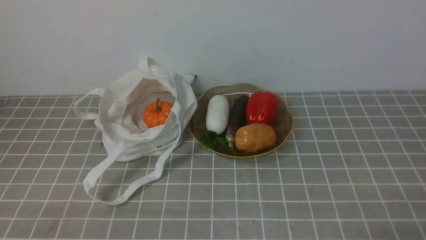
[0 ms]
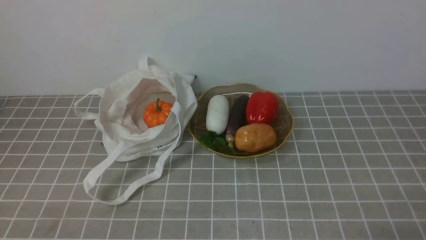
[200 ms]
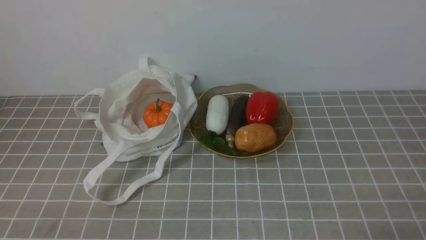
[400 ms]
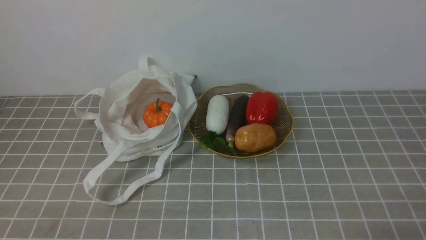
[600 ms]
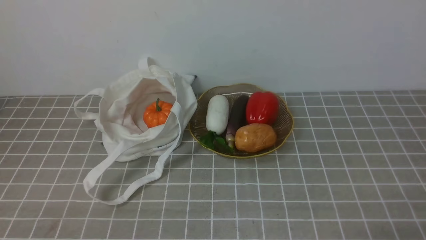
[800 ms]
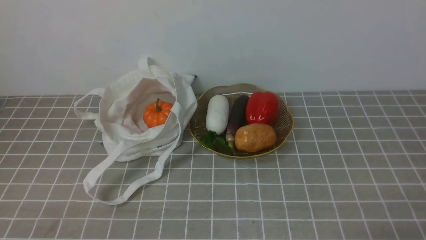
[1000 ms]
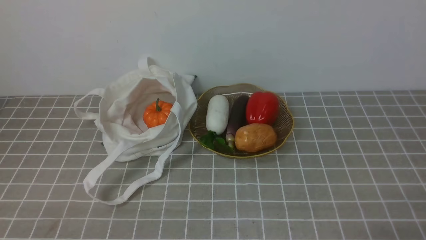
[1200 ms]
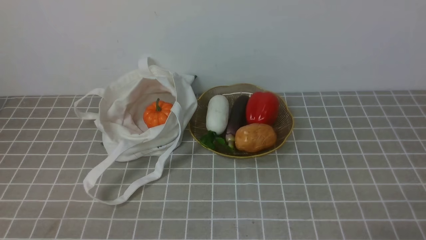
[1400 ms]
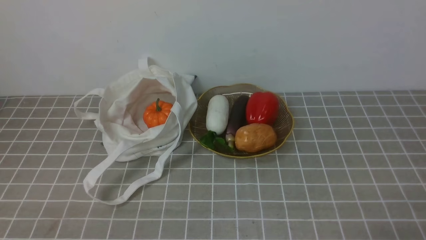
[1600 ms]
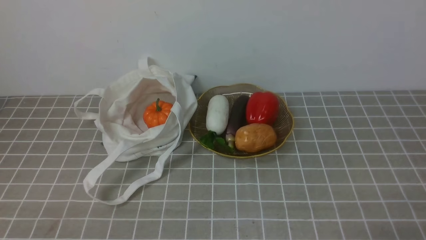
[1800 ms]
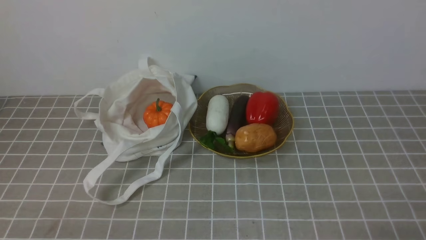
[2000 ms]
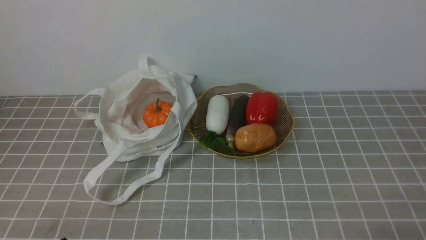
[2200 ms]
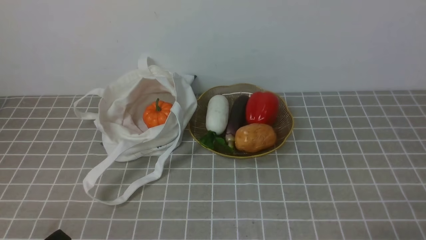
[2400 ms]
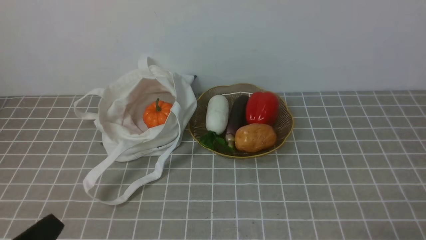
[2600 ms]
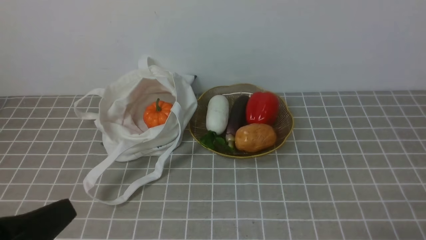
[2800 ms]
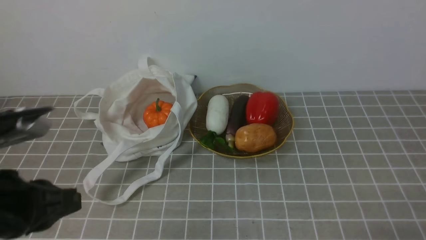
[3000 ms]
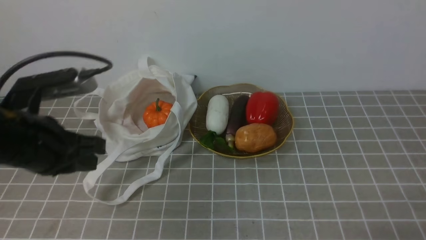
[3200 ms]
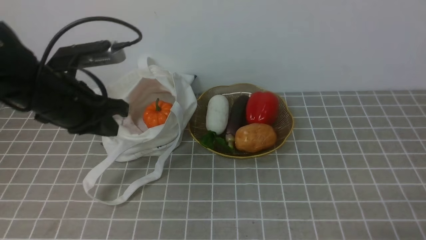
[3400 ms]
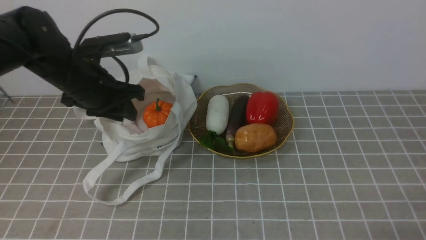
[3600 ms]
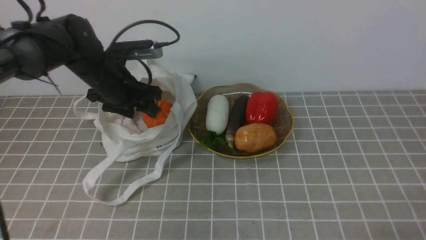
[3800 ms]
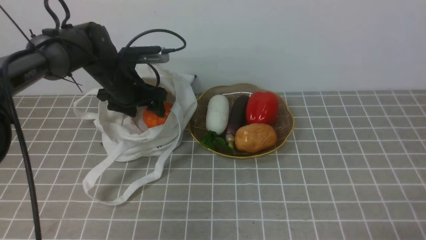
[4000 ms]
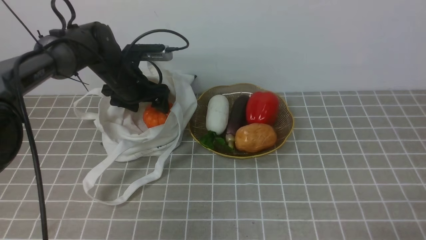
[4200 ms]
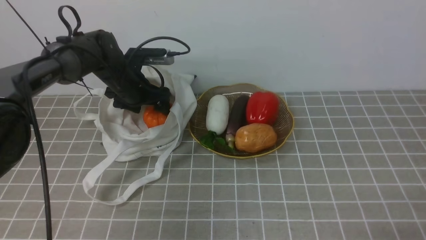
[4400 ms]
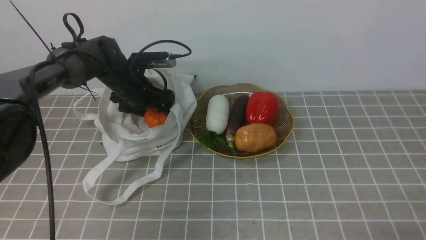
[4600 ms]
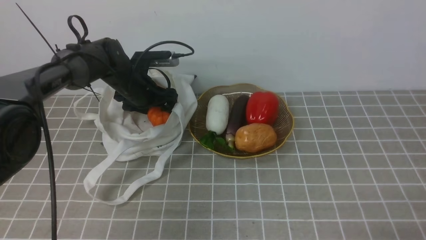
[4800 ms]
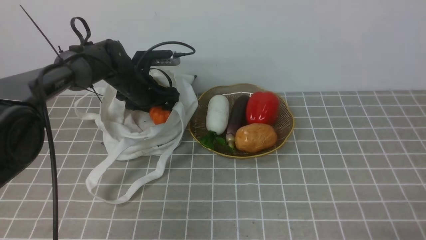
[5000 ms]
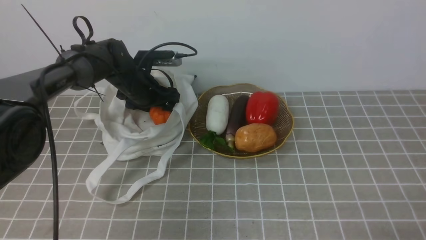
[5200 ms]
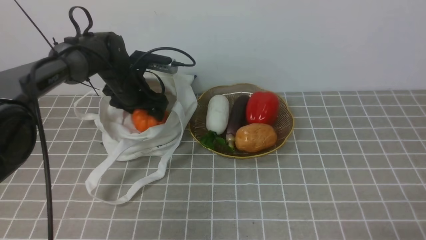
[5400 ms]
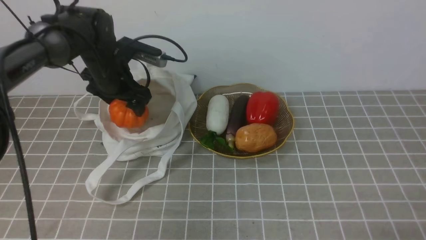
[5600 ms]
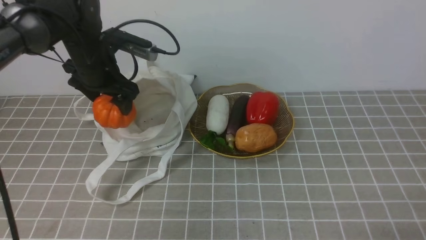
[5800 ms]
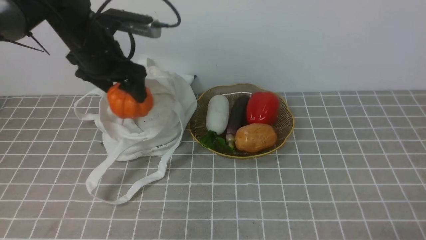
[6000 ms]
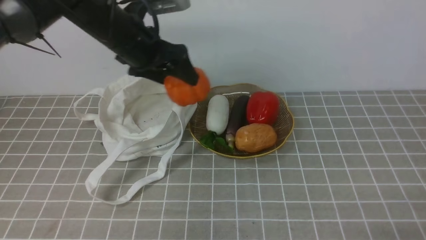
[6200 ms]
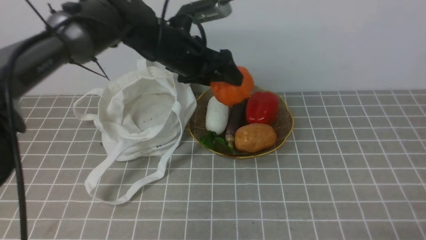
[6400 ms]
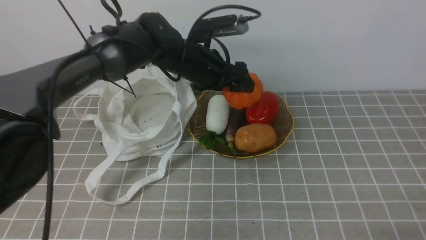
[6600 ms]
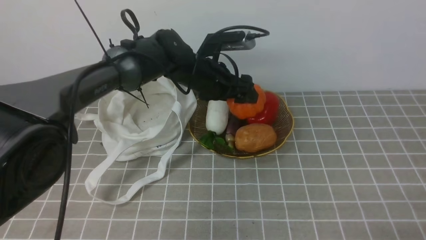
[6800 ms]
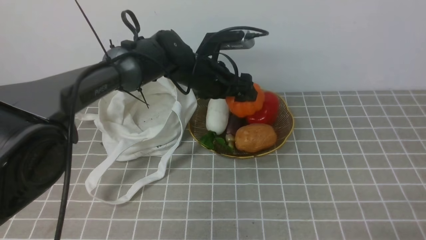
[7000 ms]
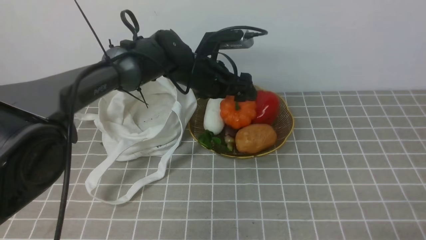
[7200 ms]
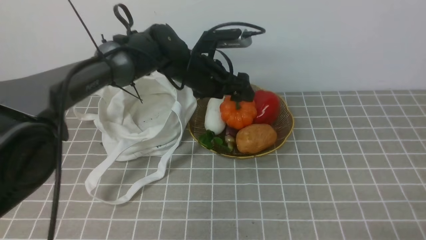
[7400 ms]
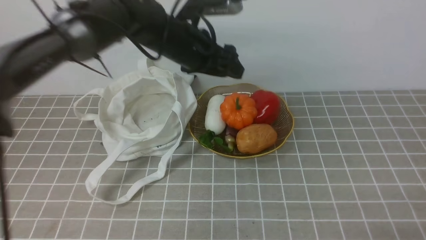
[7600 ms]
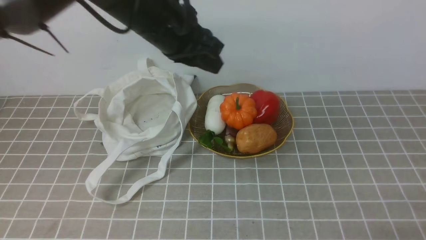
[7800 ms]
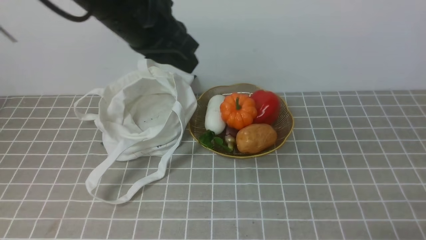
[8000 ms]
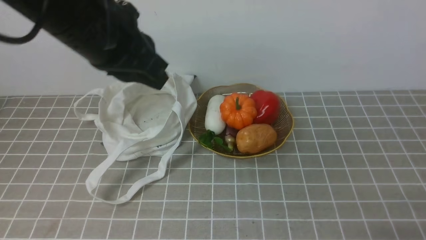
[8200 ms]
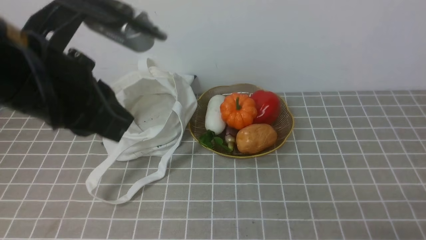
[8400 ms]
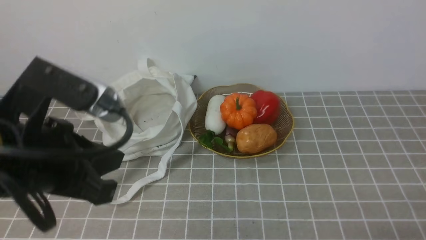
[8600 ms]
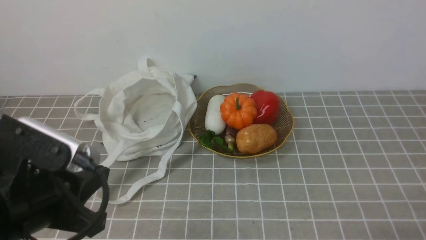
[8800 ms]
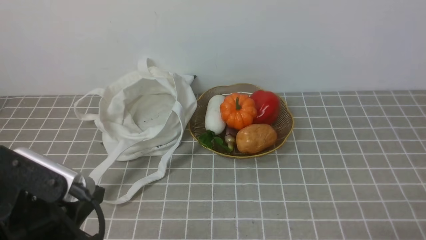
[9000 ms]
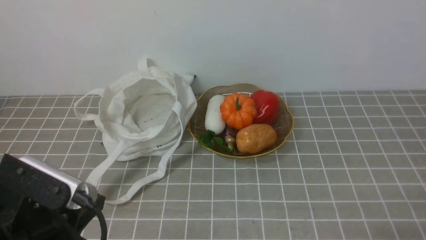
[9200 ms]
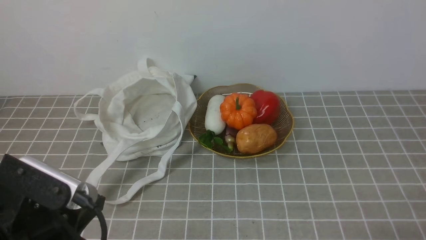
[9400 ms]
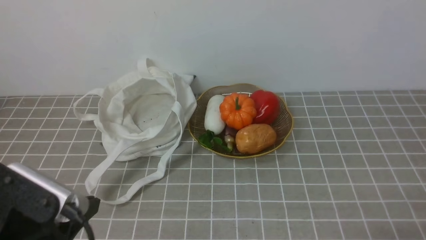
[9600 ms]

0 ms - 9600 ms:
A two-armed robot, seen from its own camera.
Task of the whole recording: take vegetables from bag on grey coffee tablecloth place on plate.
Step, 0 ms - 4600 ms: Grasp the pumpkin with left gripper.
Step, 4800 ms - 7600 ms: Place the pumpkin on the plate with left gripper.
1600 ms - 3200 ms: The left gripper moves upward and forward, roughly 20 cm.
3200 ms - 4800 ms: The left gripper travels forward and downward by roughly 35 cm, and opens its fingers.
4800 ms - 6400 ms: The left gripper heads upward, to the right and backward, covering about 15 cm.
6400 ms - 8000 ms: The left gripper moves upward and backward, some 15 cm, and closes its fingers.
8000 ms - 9600 ms: The left gripper is displaced backward, downward and to the left by some 30 cm.

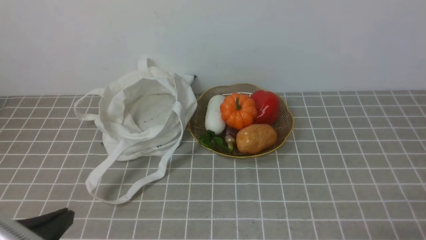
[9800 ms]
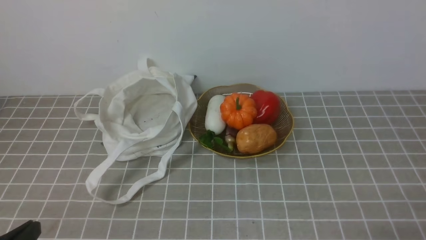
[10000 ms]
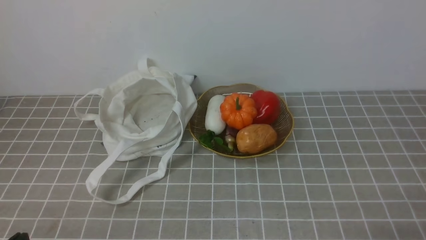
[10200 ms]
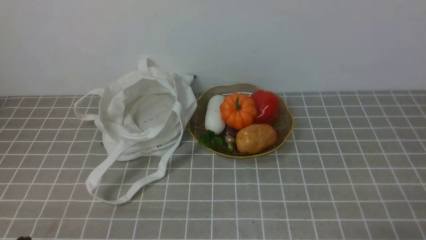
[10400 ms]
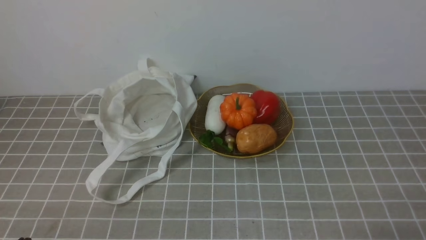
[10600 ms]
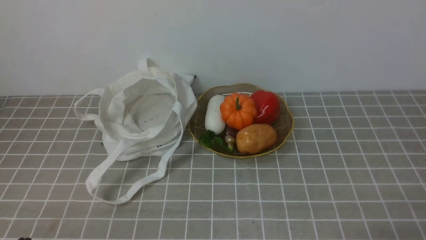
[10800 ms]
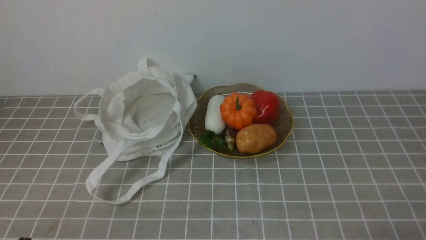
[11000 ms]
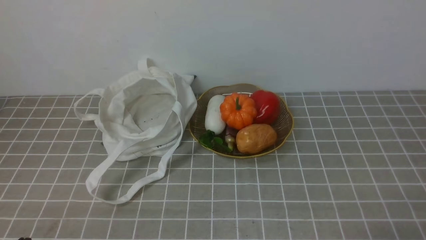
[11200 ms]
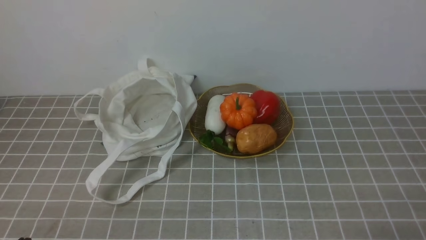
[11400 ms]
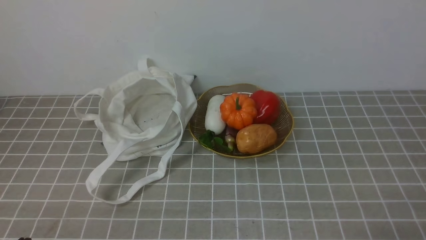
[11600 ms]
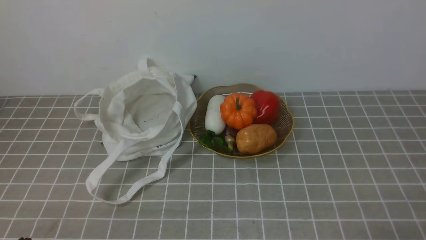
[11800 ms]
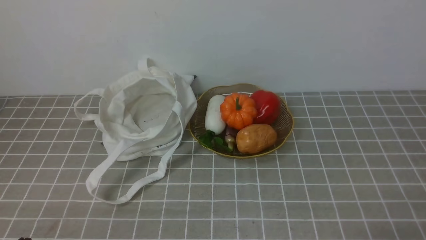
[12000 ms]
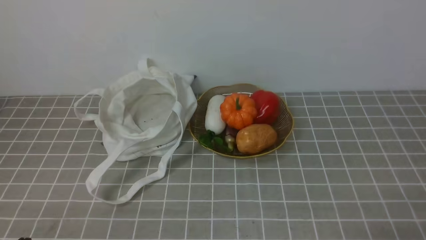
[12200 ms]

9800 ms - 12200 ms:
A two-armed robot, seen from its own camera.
Task of the whole recording: take vegetables from bag on grey coffee tablecloth place on plate.
9800 ms - 11000 ms: The left gripper shifts about 5 cm downward.
11000 ms - 12200 ms: Both grippers stay put.

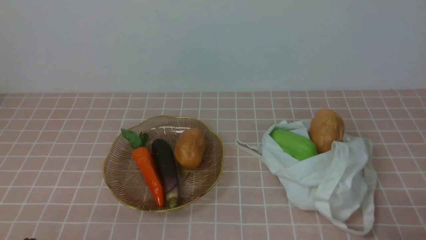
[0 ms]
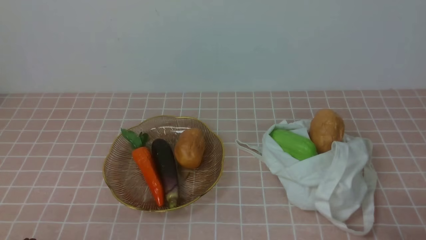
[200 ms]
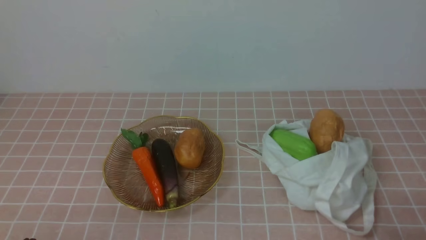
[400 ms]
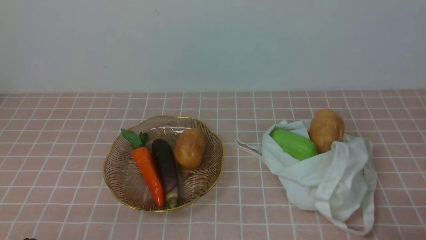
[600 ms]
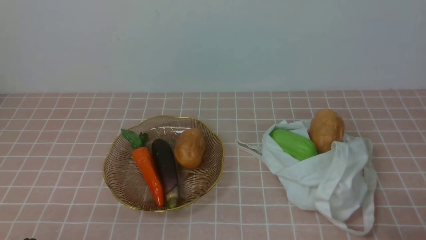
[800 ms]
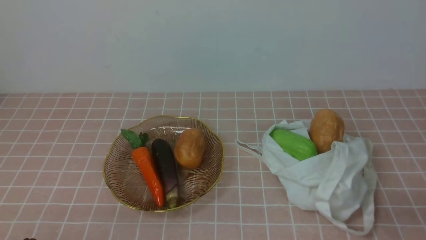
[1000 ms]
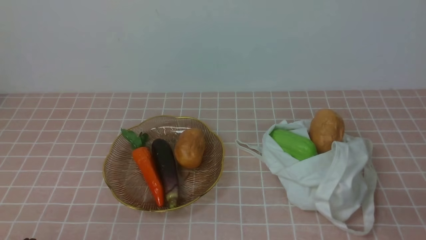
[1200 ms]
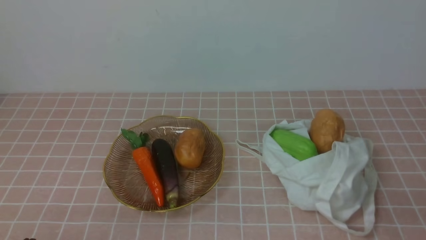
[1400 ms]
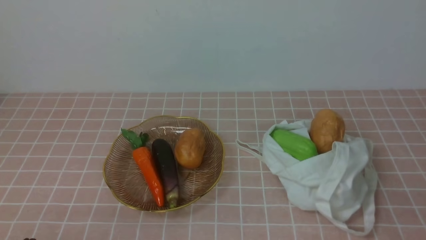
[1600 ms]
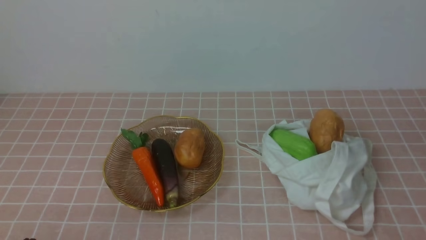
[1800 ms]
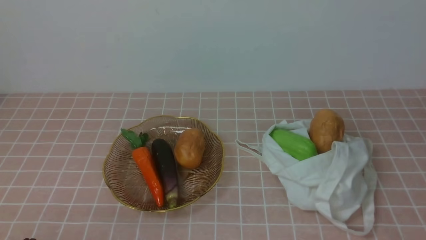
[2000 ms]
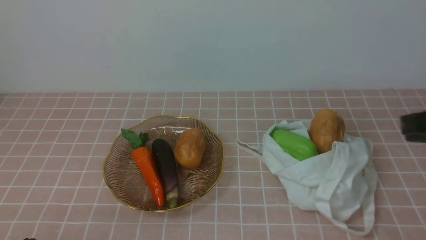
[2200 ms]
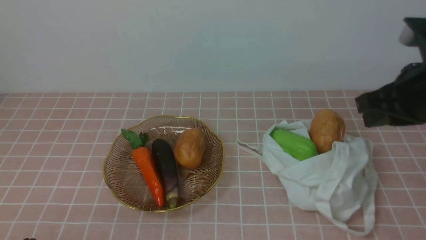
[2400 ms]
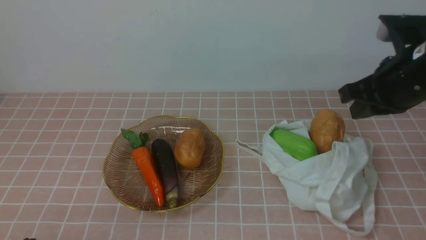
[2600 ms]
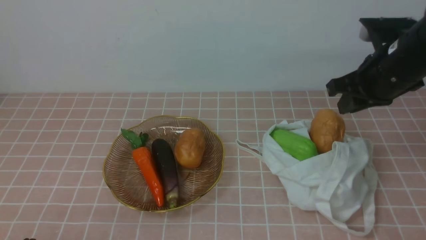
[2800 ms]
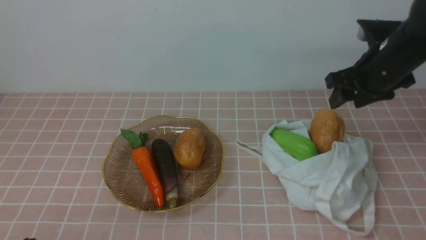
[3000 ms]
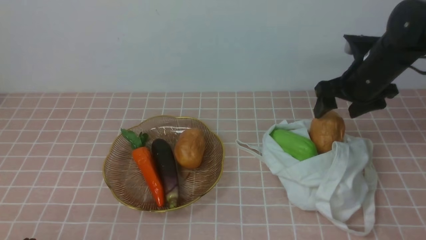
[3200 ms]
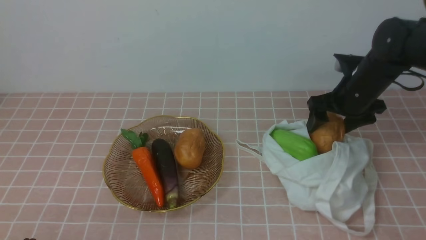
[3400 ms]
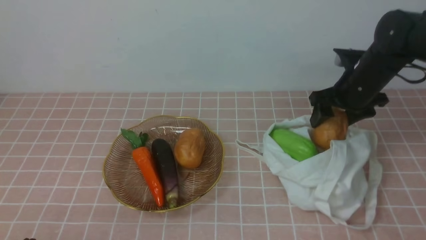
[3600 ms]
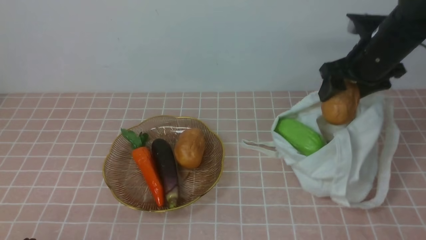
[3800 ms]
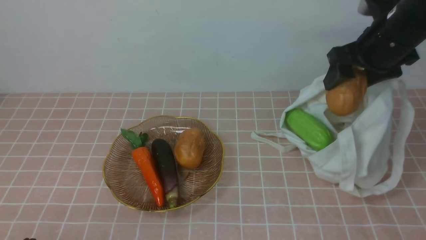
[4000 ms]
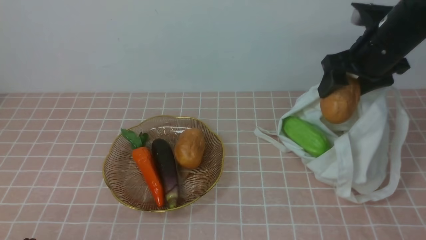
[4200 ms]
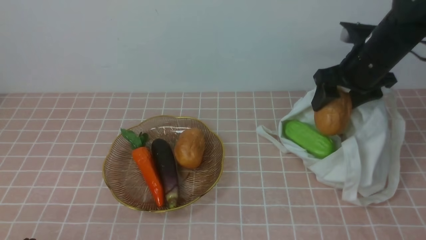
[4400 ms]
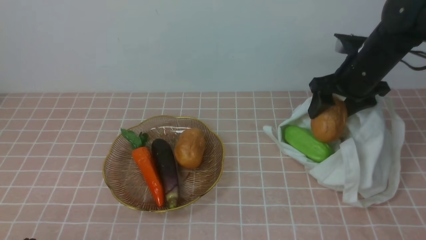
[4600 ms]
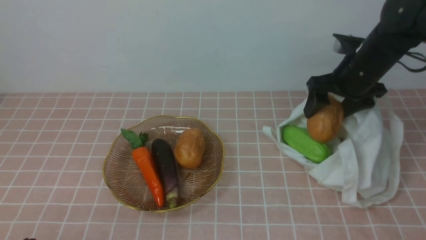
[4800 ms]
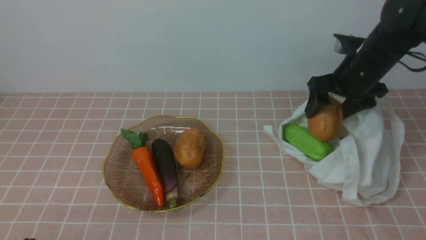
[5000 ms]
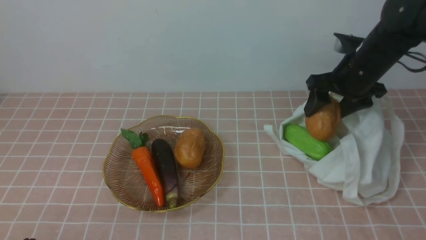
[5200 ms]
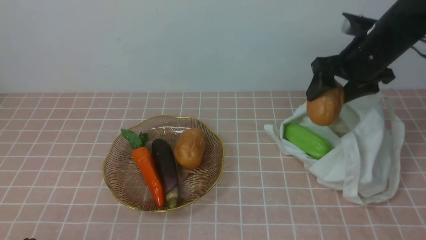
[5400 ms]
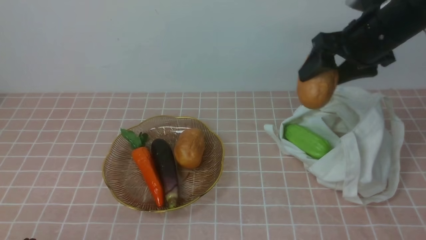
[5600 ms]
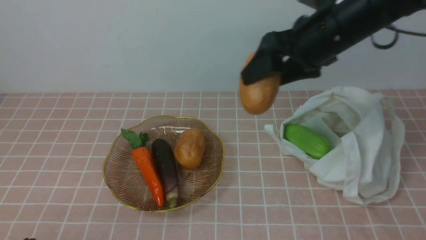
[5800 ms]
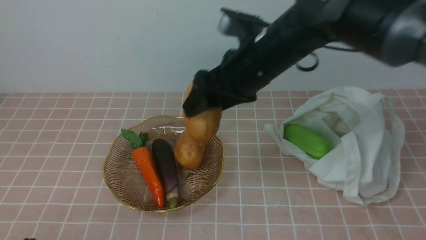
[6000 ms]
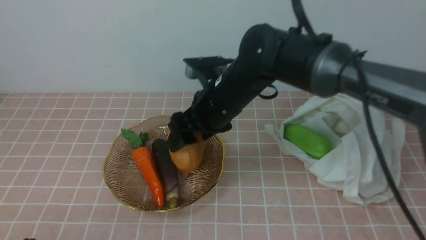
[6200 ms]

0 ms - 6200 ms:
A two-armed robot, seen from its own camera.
Task of the whole recording: take vegetables from bag on pink coffee tablecloth place on plate.
Step, 0 ms - 5000 ms: Grasp the potato with right gripper.
1600 ms - 3200 ms: The right gripper heads forward, covering roughly 35 cm, and opens up.
3200 ms - 4600 ms: The right gripper travels upward and back again, approximately 5 cm each way.
4600 ms - 6200 ms: The right gripper heads to the left, covering roughly 20 cm.
